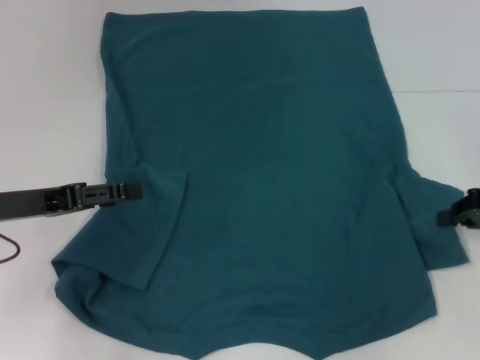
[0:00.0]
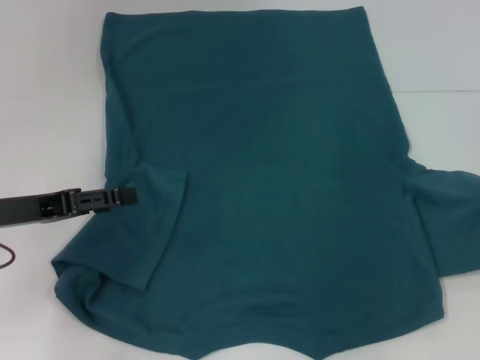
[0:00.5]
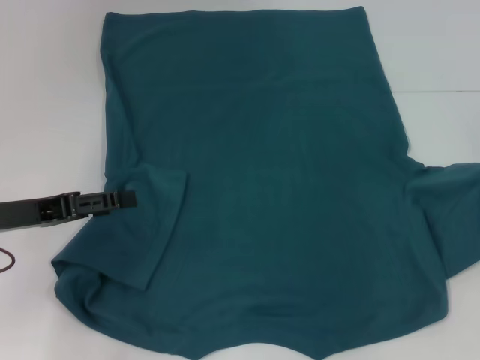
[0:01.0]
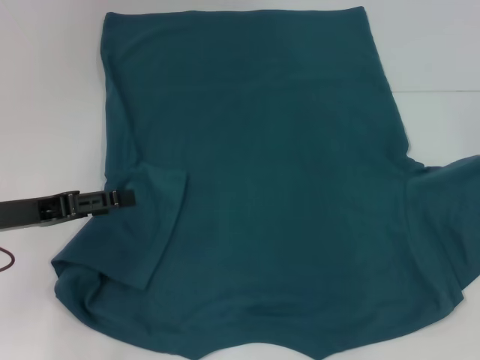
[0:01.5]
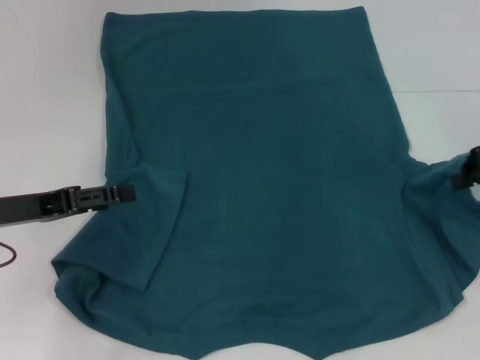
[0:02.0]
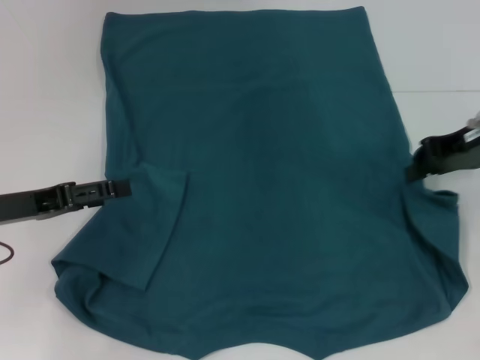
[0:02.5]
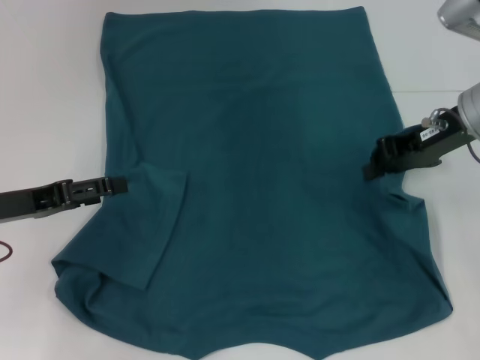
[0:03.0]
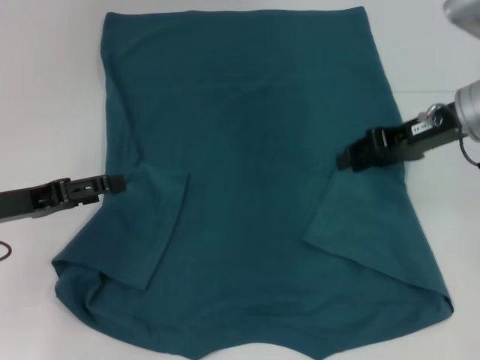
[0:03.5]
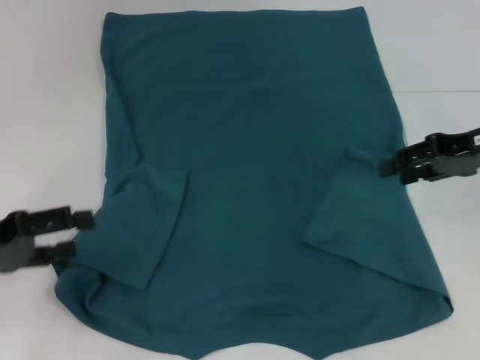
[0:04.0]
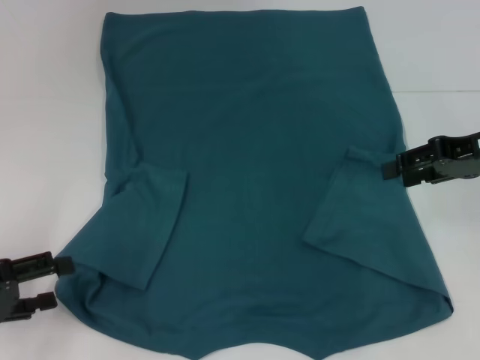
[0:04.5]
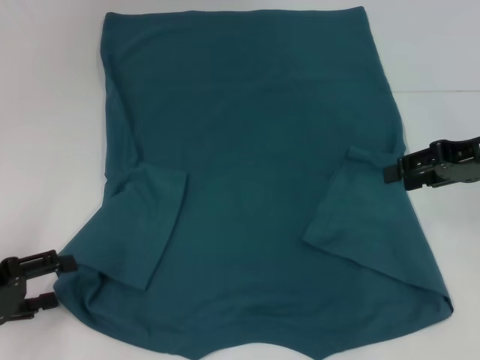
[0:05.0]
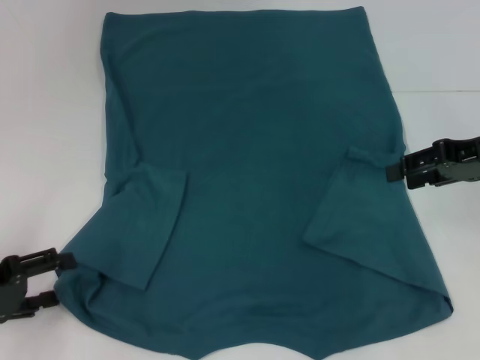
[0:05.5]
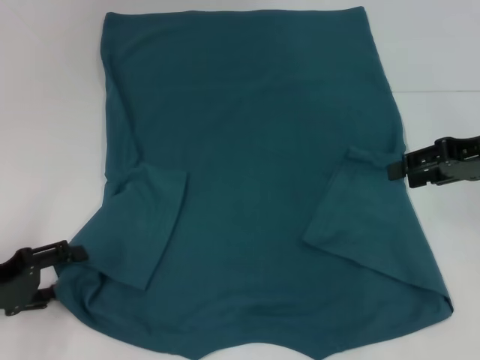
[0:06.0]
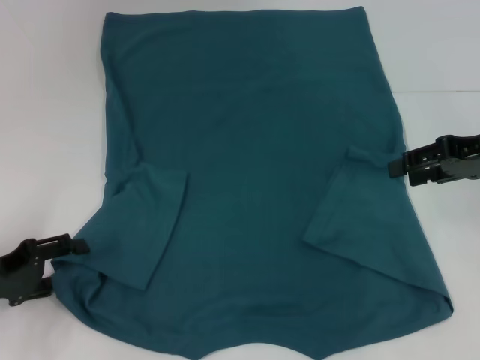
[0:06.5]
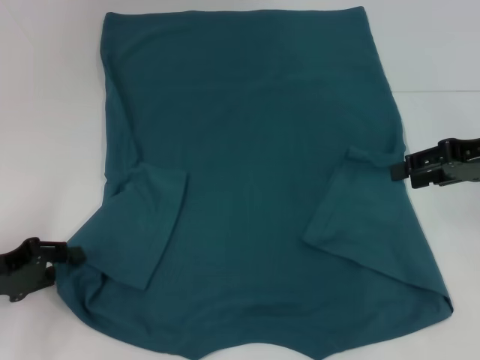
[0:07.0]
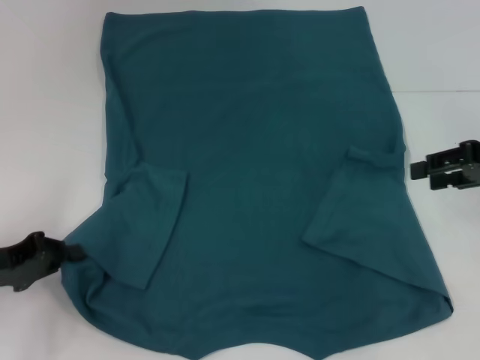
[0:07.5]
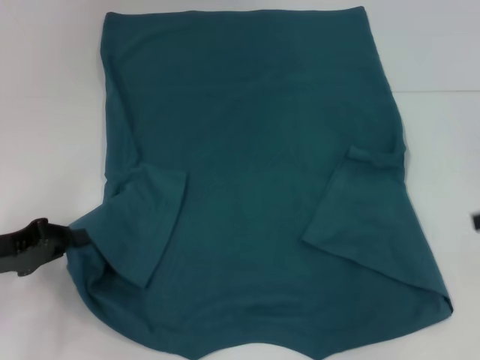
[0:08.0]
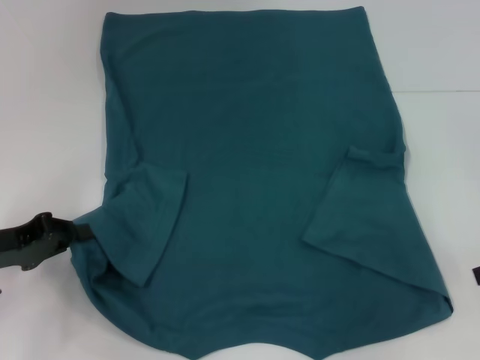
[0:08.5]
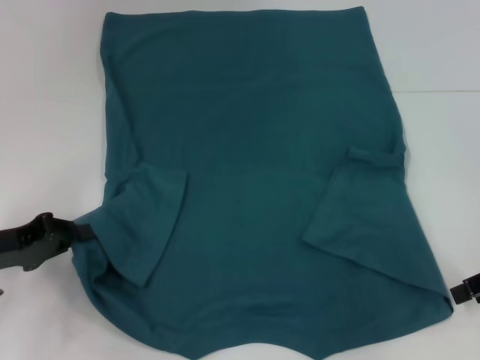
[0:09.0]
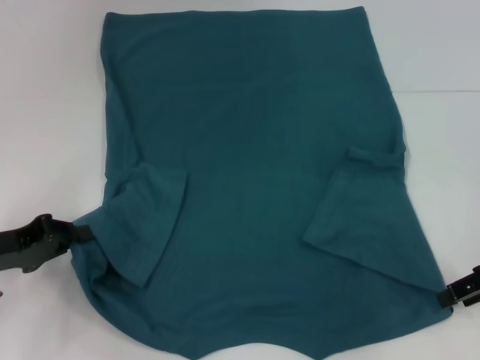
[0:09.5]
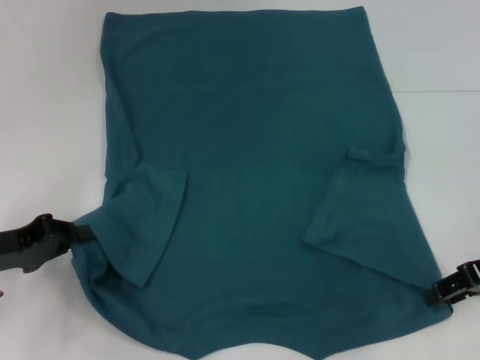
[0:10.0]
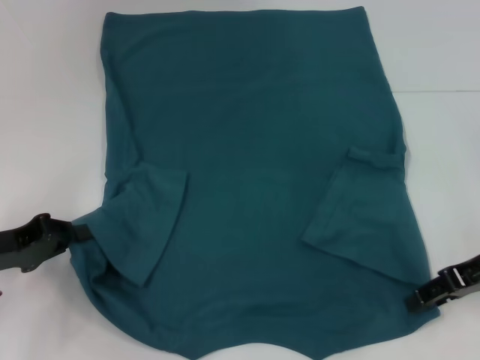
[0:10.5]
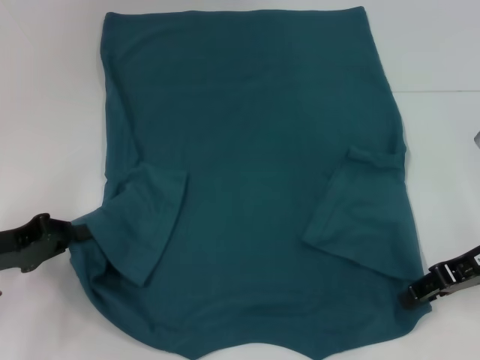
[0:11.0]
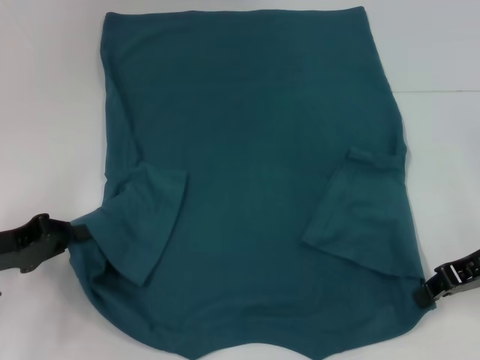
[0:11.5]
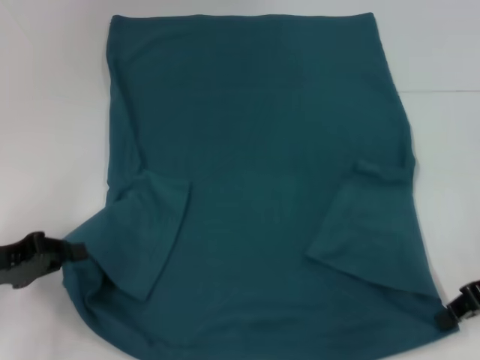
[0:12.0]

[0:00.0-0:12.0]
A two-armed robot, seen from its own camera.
Step, 0:00.0 to 0:03.0: Fold the bottom right sleeve to the right.
Step, 0:03.5 to 0:07.0: Grab the bottom left corner with your left hand.
Step, 0:07.5 to 0:11.5: Grab the bottom right corner with your right hand.
0:00.0 to 0:02.0: The right gripper heads upward, covering about 5 cm.
0:02.0 to 0:04.0: The left gripper ends up some 5 cm from where it was, while the right gripper opens.
0:04.0 to 0:06.0: The left gripper shifts about 5 cm downward.
0:06.0 to 0:08.0: The left gripper closes up; the right gripper is displaced to the right and backward by roughly 10 cm.
0:08.0 to 0:10.0: The right gripper goes about 10 cm to the left and downward.
0:10.0 to 0:12.0: The right gripper closes up.

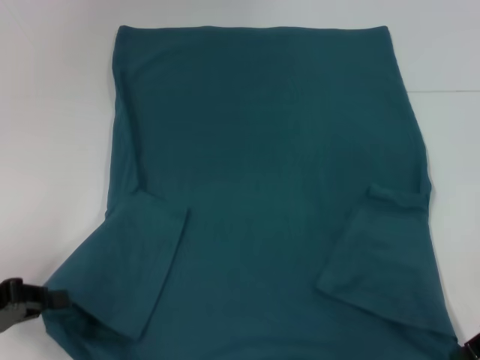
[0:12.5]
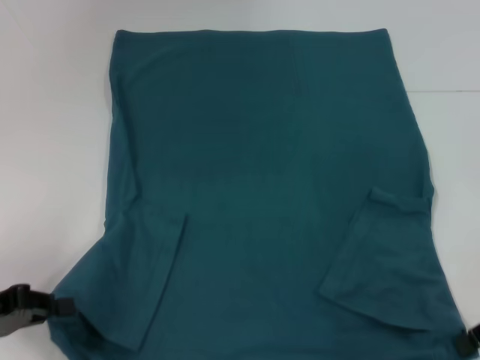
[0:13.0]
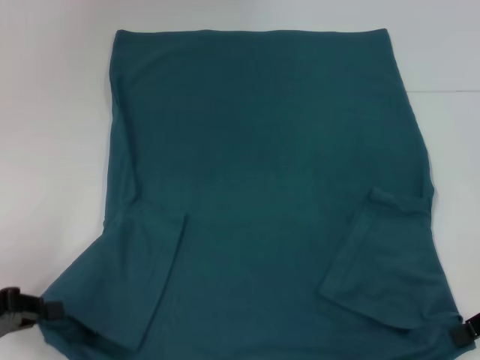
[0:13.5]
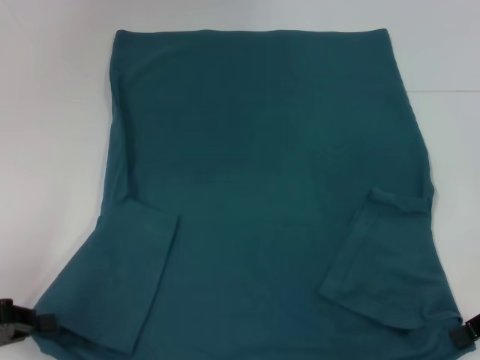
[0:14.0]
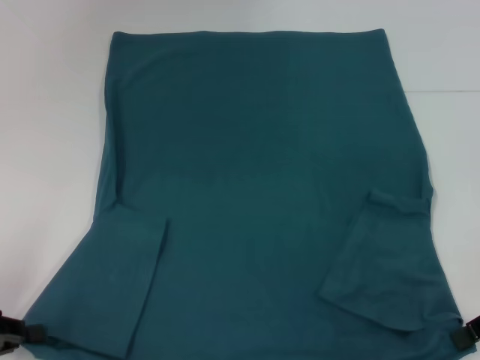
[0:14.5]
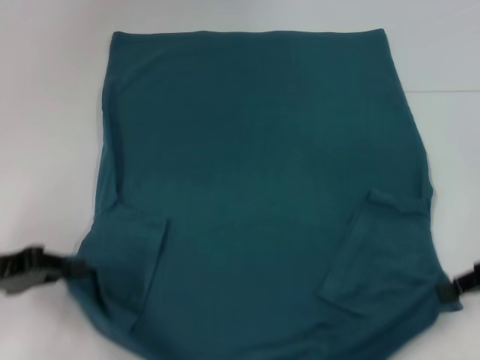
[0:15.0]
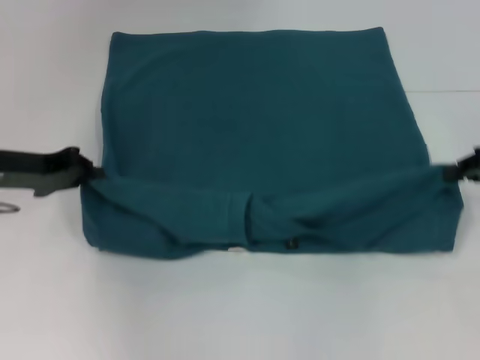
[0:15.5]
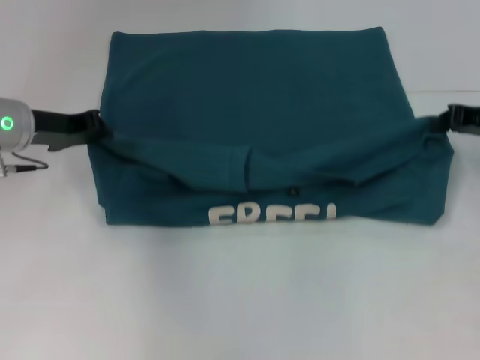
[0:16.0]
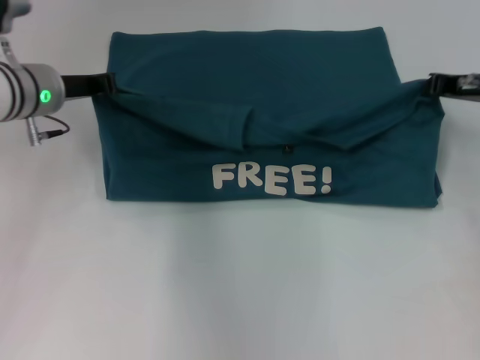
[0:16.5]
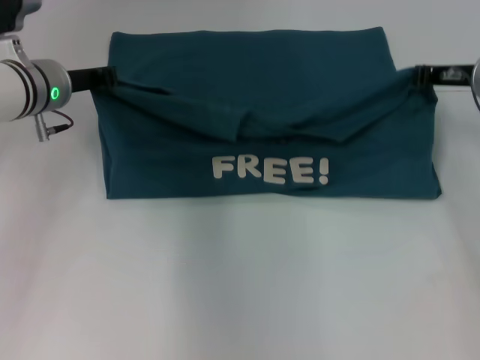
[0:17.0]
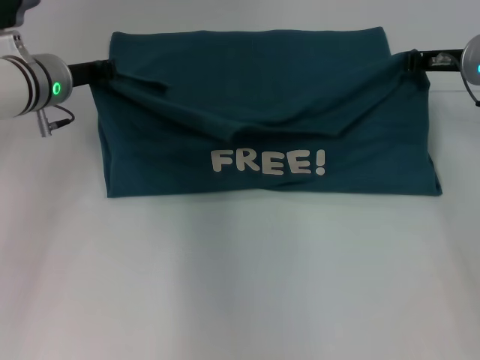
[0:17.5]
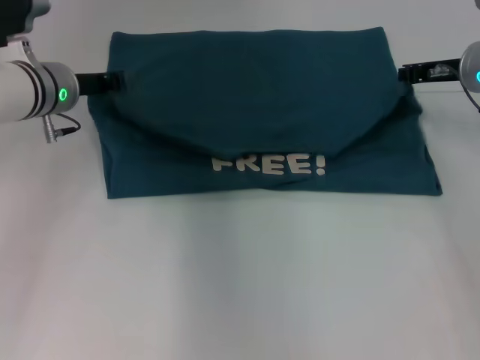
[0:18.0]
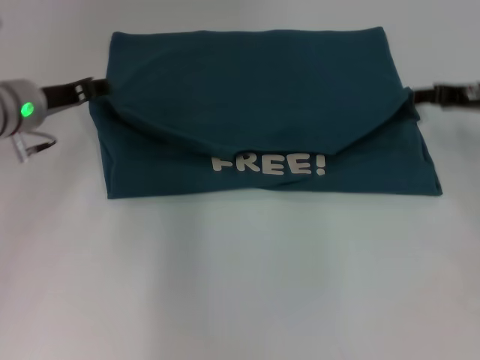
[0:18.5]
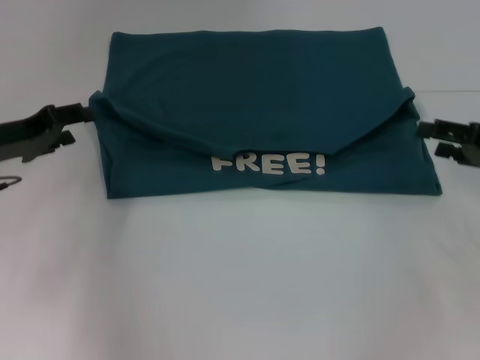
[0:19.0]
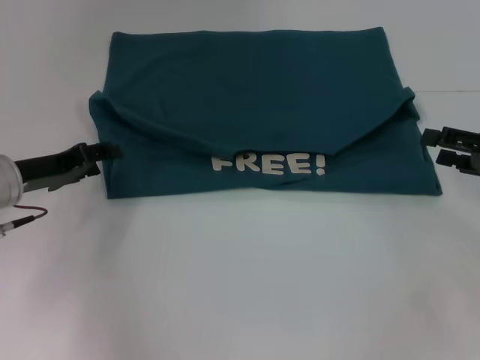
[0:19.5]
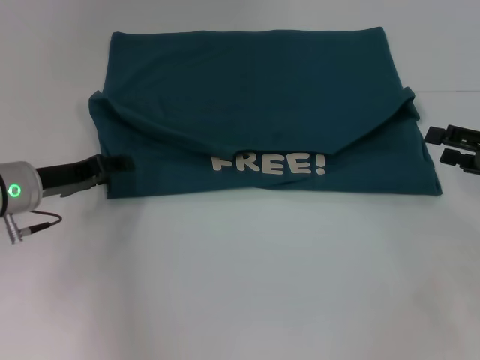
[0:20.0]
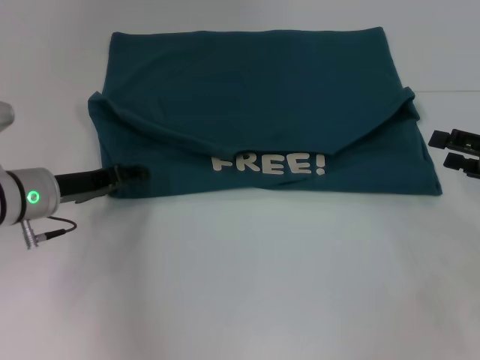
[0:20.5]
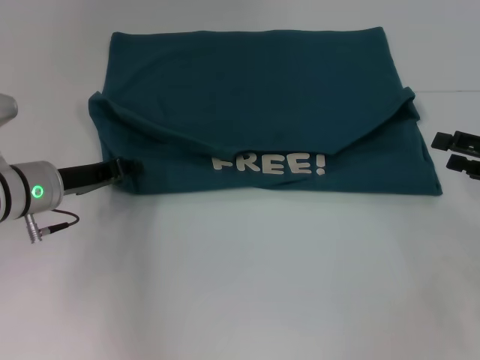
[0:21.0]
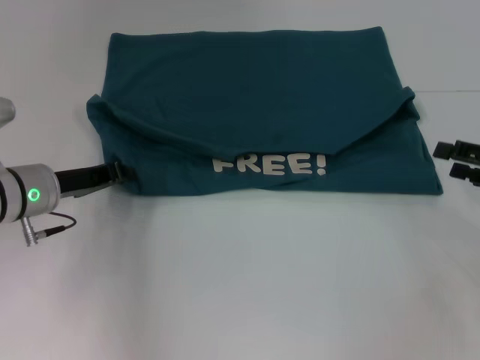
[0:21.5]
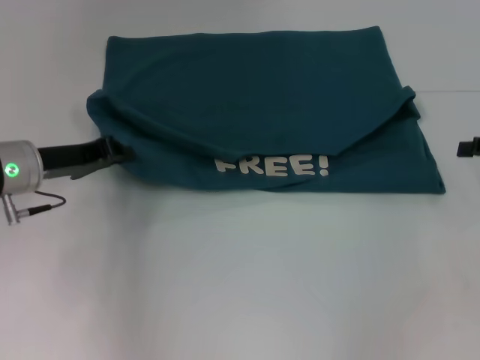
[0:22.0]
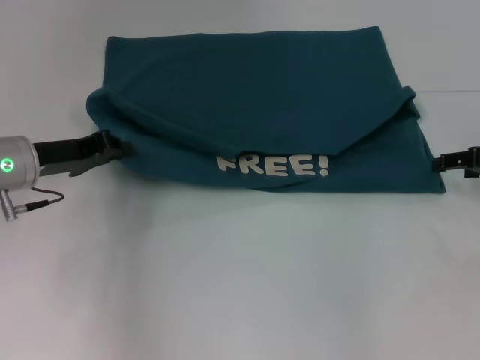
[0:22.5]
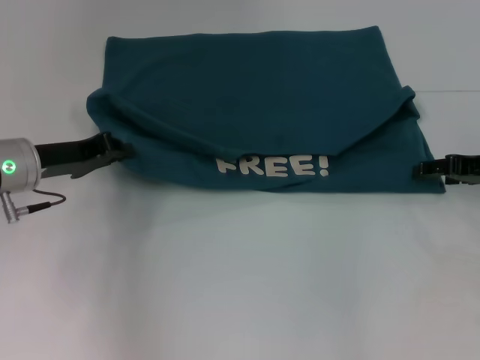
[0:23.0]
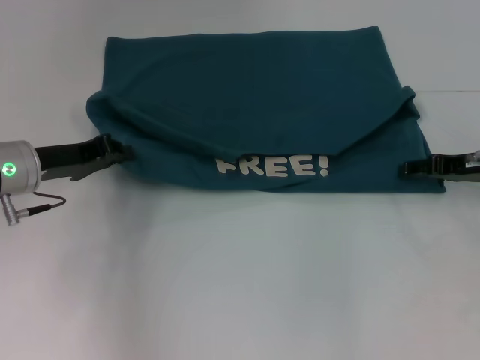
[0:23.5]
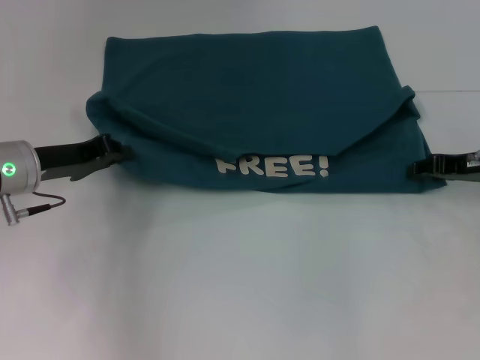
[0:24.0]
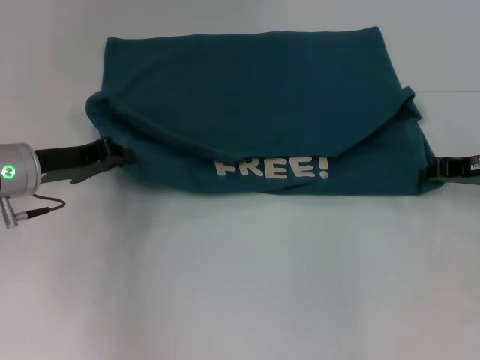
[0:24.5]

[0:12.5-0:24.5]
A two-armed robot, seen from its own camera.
Step, 0:12.5 to 0:18.5: Fold the clothes to the left.
Step, 0:12.5 to 0:18.5: Fold the clothes to the right.
0:12.5 to 0:14.5: The grippers make only small movements.
0:14.5 to 0:16.5: The right gripper heads forward, covering approximately 15 cm; the left gripper goes about 25 cm forward and to the right.
0:16.5 to 0:18.5: The left gripper opens, while the right gripper opens.
0:18.5 to 0:20.5: The right gripper heads backward and to the right, covering some 15 cm, and opens. Meanwhile the left gripper shifts some 10 cm downward and backward.
0:20.5 to 0:22.5: The left gripper closes up; the right gripper moves forward, some 5 cm.
0:22.5 to 0:24.5: The right gripper closes its fingers.

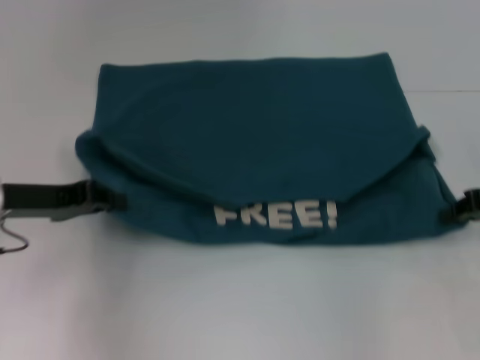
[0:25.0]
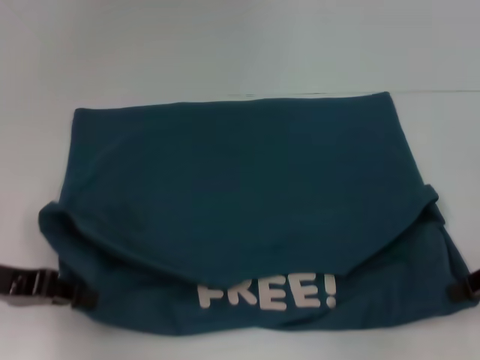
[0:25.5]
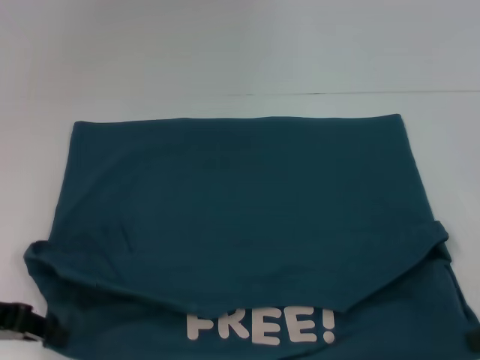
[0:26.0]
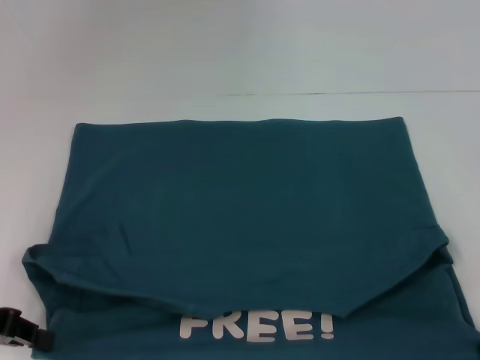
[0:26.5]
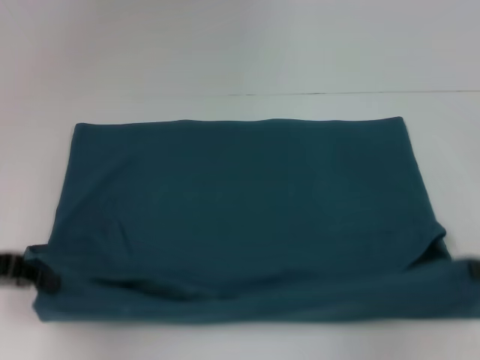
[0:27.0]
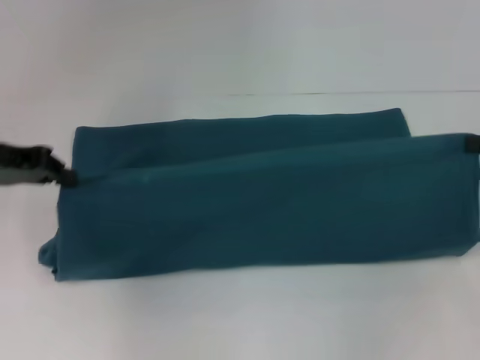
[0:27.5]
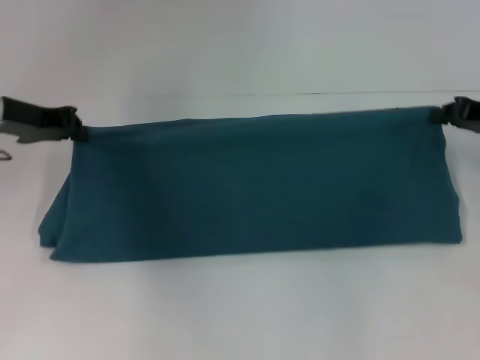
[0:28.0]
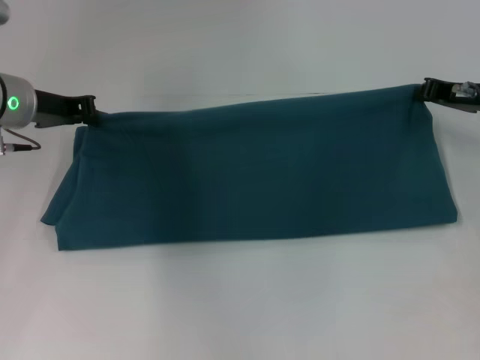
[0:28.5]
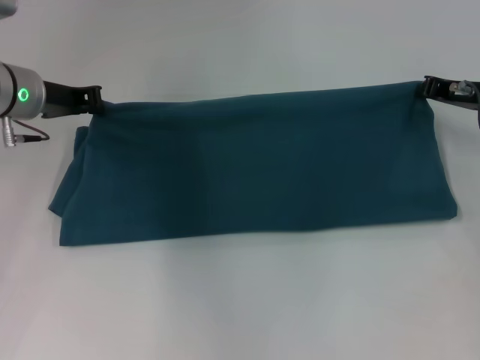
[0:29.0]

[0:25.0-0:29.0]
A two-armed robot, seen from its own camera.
0:25.0 to 0:27.0: The right gripper heads backward, covering about 5 cm; the left gripper travels to the left by approximately 5 cm.
0:27.0 to 0:29.0: The left gripper moves forward and to the right, approximately 20 cm; the right gripper travels forward and to the left by about 20 cm.
